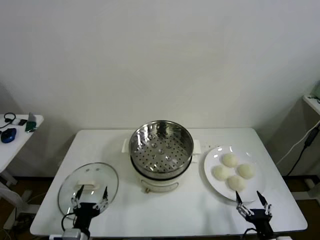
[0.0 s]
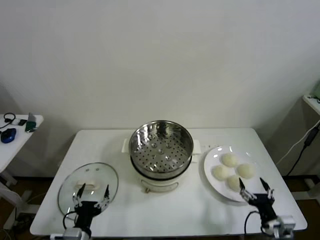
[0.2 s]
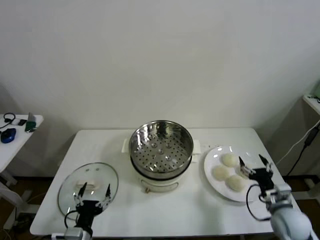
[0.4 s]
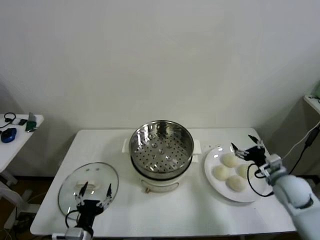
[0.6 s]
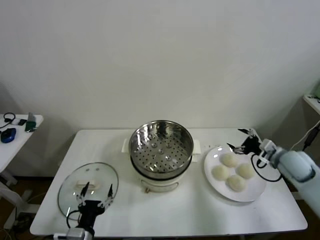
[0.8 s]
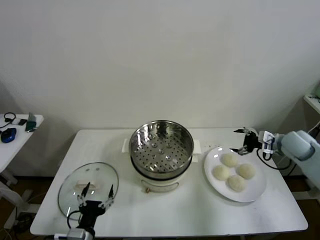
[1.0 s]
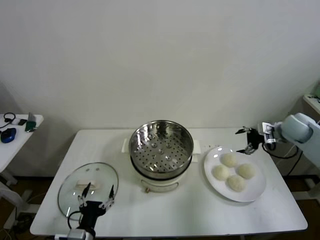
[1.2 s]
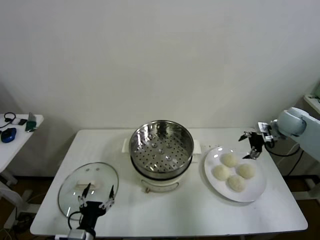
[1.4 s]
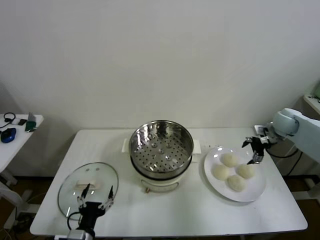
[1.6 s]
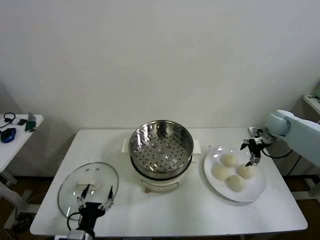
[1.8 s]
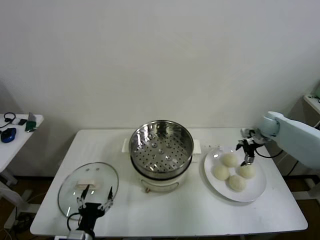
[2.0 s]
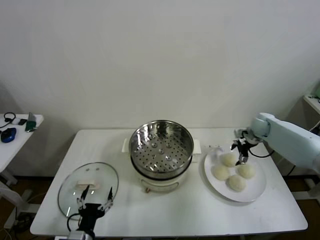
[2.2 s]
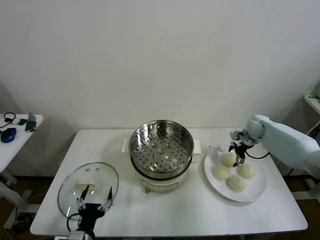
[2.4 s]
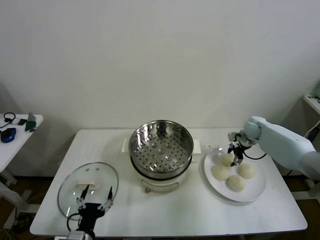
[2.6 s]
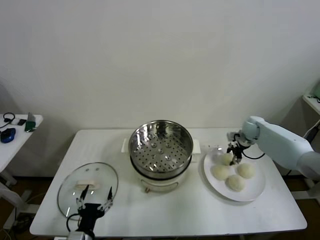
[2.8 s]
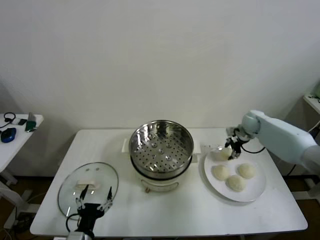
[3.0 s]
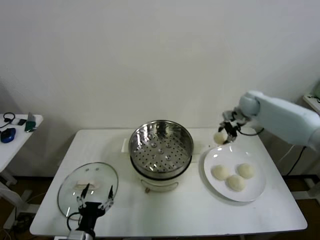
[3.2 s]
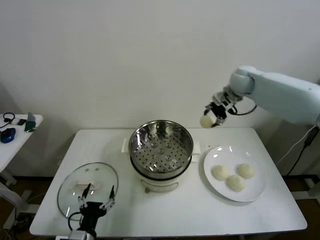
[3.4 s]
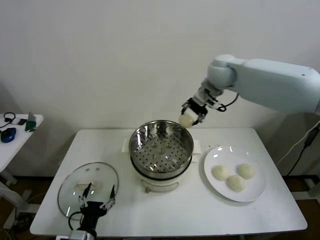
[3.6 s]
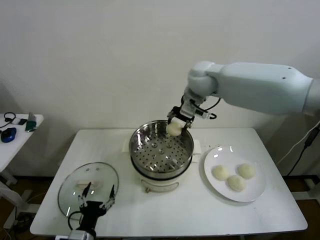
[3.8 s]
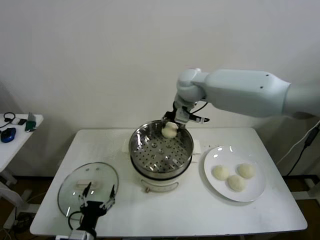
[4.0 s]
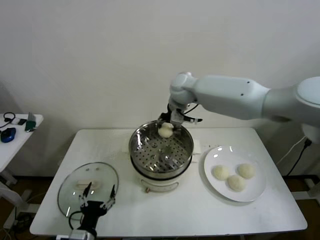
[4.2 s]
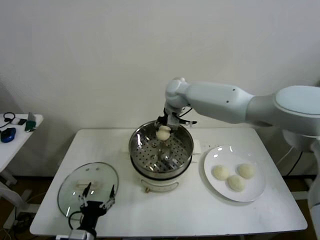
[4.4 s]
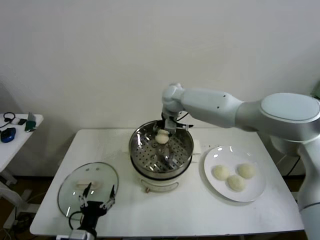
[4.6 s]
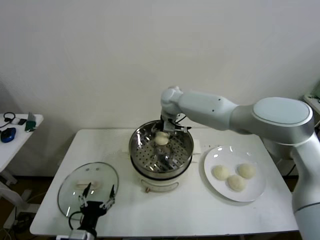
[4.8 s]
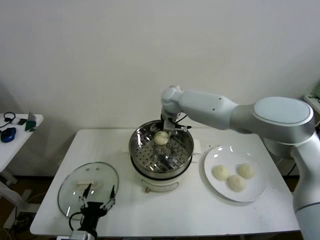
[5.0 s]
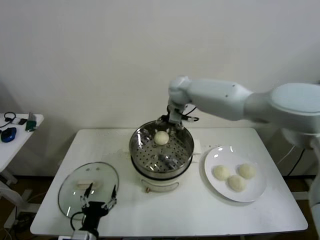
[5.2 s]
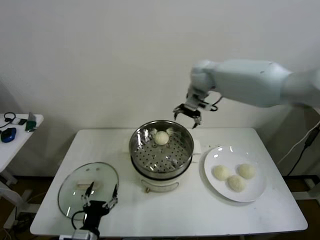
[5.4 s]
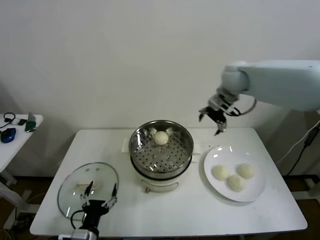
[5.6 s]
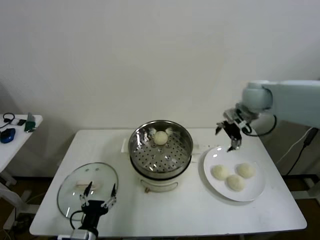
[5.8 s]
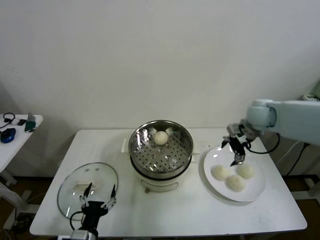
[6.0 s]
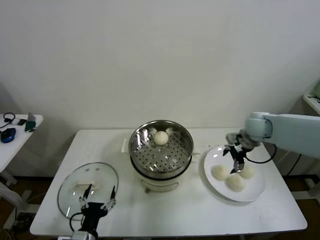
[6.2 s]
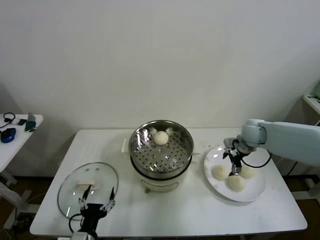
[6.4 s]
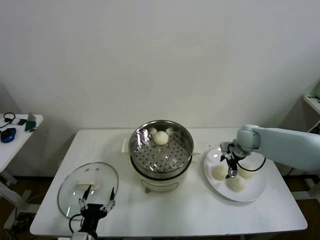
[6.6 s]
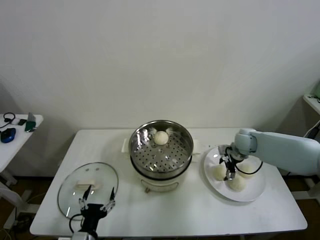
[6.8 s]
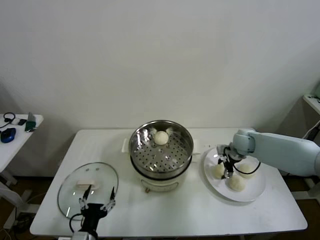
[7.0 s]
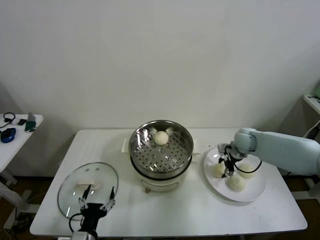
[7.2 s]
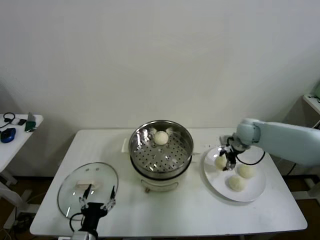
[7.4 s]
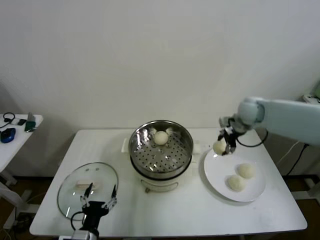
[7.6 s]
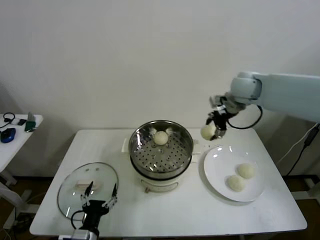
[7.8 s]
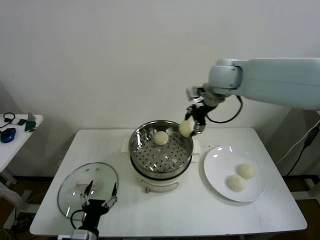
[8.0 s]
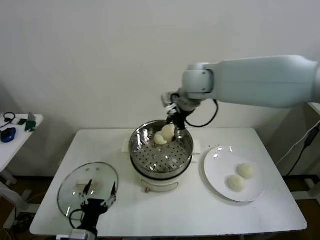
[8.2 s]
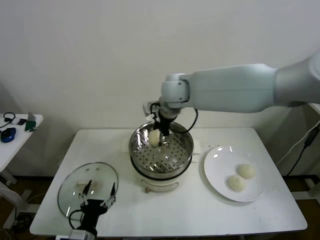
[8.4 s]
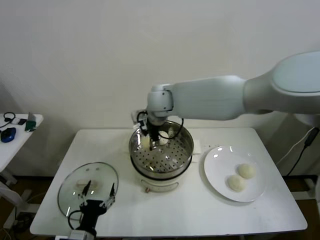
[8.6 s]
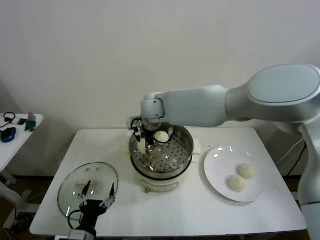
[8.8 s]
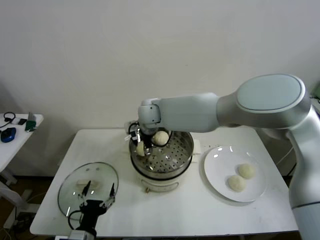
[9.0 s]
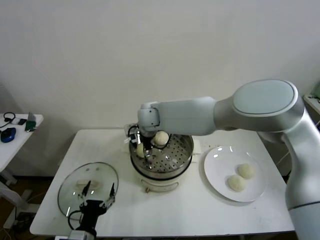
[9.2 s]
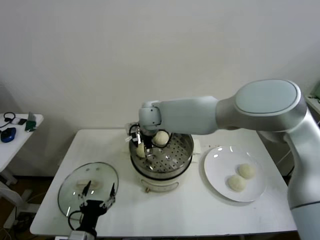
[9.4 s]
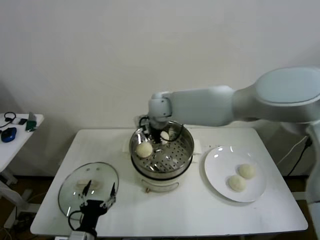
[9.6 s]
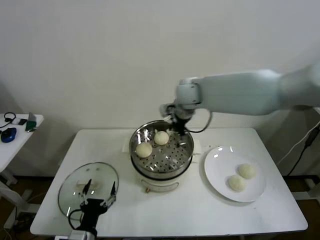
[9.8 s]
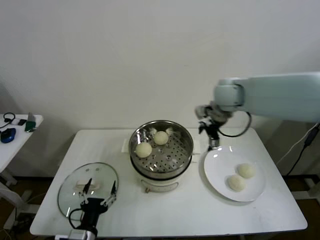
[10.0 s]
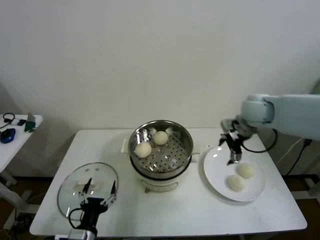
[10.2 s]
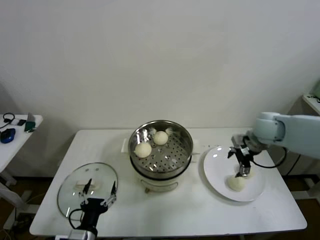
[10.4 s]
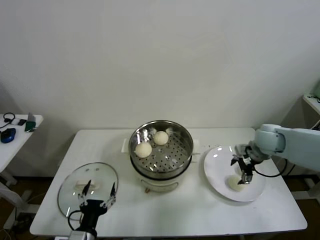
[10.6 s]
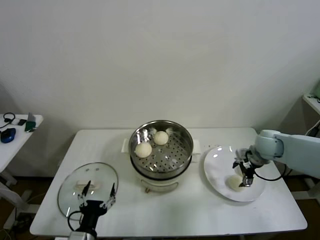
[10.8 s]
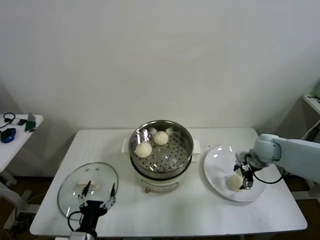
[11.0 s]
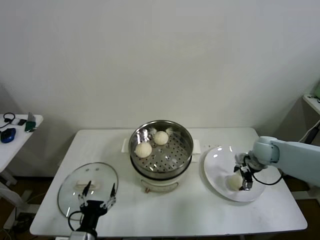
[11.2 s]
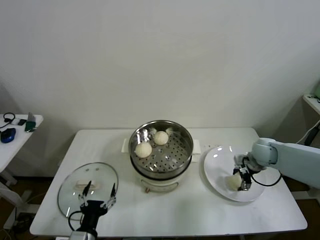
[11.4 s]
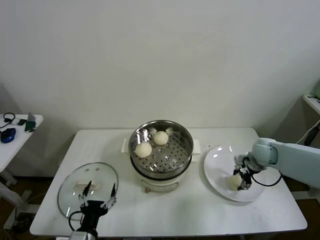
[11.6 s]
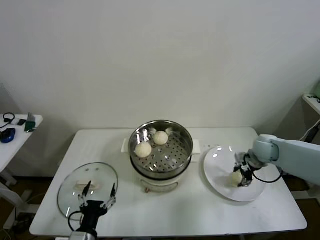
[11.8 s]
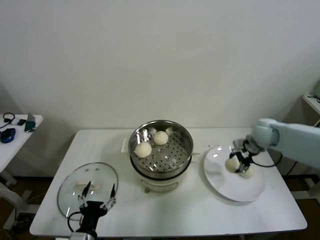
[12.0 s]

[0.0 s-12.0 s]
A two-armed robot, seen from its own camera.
Step, 0.0 to 2.6 s: Grasp the baozi in the plate with right gripper.
Step, 2.8 to 5.0 s: Place the baozi on the steamer with right gripper.
Step, 5.2 to 7.0 s: Grasp the baozi in the plate with right gripper.
Step, 7.2 to 9.2 s: Place the baozi on the steamer with right gripper.
Step, 9.4 to 11.6 s: Grasp the baozi in the plate with right gripper.
1.6 to 3.0 s: The right gripper is displaced to the left and forward by about 10 cm, and closes its fingers.
3.0 to 4.4 s: The right gripper is displaced to the left by roughly 30 cm.
4.4 to 6.0 s: The right gripper is displaced to the right by about 30 cm, and opens its fingers.
6.0 to 7.6 s: The right gripper reaches about 15 cm downward, then returns, and closes up.
7.6 to 9.0 s: The right gripper heads to the left, covering about 35 cm.
9.0 to 10.4 s: The right gripper shifts some 40 cm to the right, and opens up.
10.4 to 12.0 s: The right gripper goes downward and returns, about 10 cm each way, and closes.

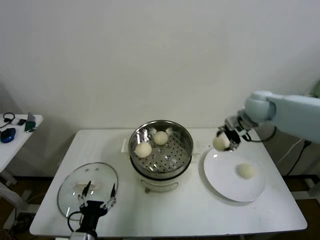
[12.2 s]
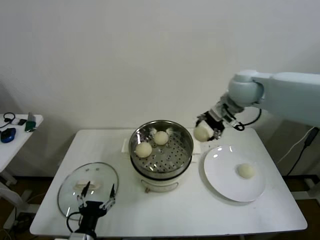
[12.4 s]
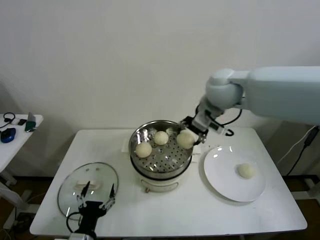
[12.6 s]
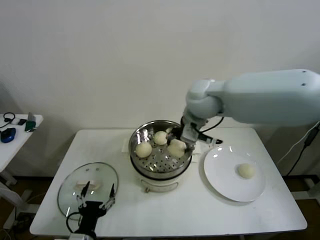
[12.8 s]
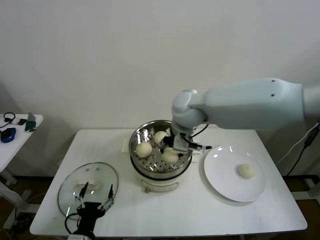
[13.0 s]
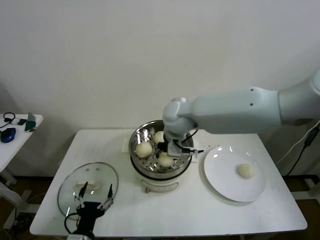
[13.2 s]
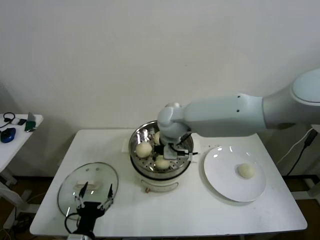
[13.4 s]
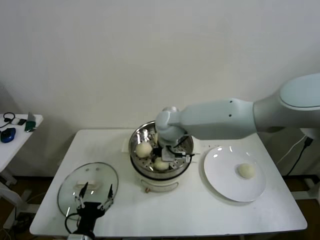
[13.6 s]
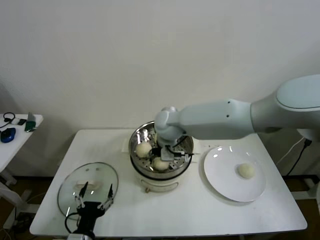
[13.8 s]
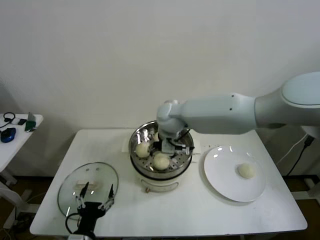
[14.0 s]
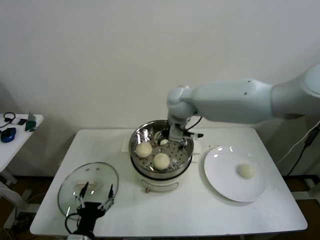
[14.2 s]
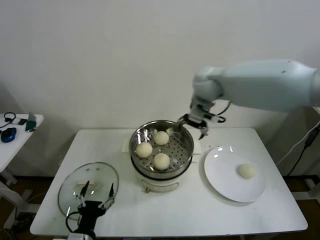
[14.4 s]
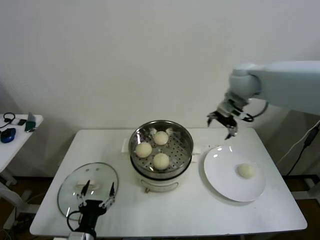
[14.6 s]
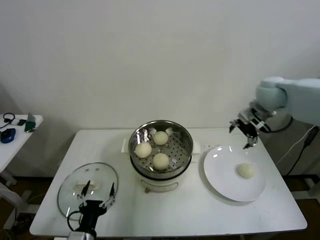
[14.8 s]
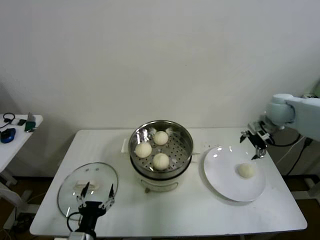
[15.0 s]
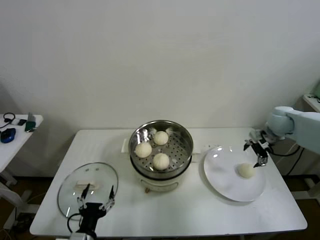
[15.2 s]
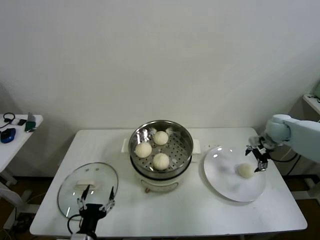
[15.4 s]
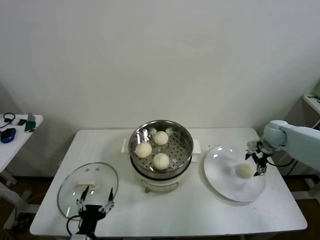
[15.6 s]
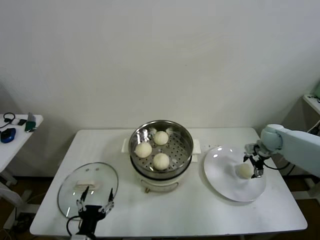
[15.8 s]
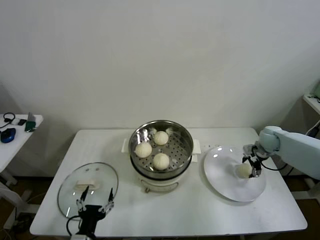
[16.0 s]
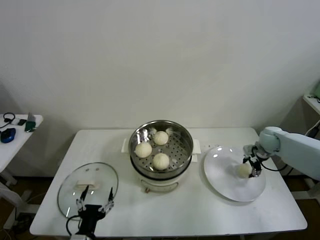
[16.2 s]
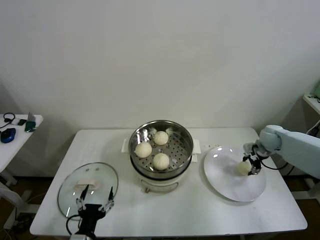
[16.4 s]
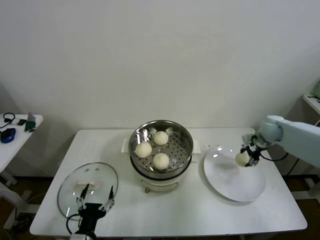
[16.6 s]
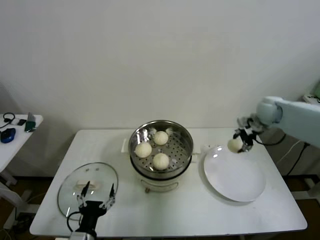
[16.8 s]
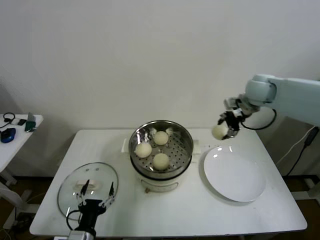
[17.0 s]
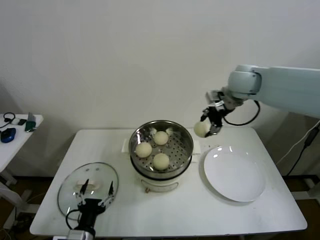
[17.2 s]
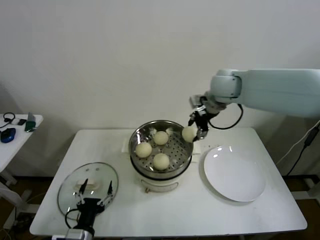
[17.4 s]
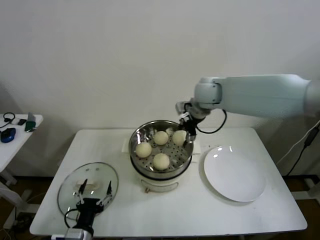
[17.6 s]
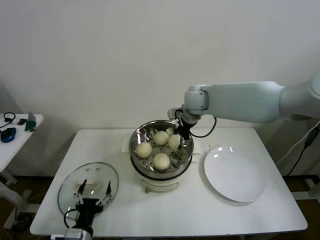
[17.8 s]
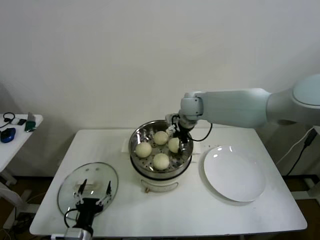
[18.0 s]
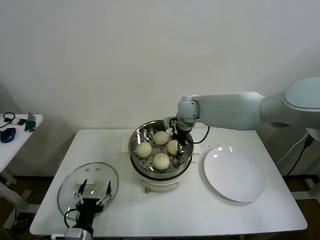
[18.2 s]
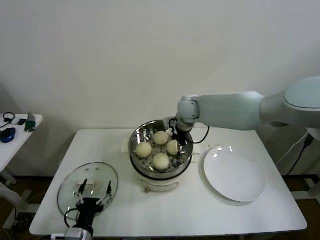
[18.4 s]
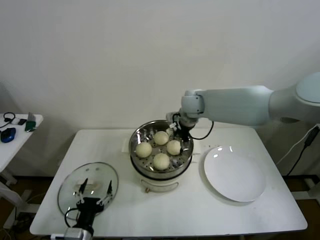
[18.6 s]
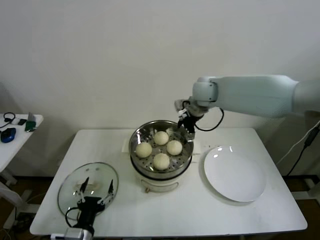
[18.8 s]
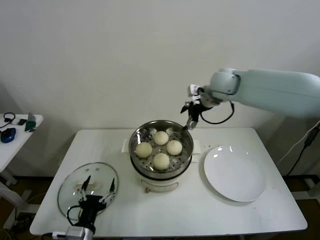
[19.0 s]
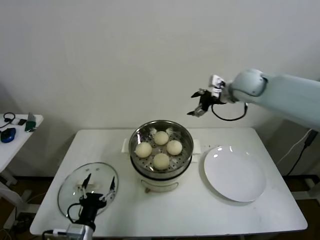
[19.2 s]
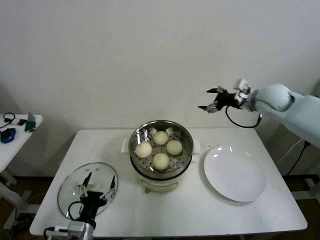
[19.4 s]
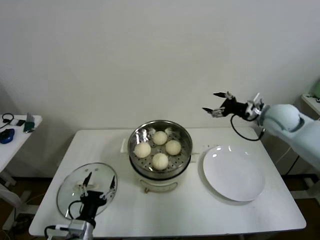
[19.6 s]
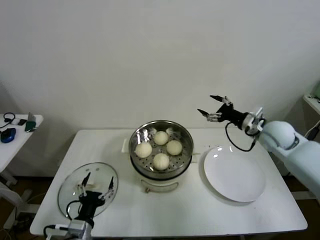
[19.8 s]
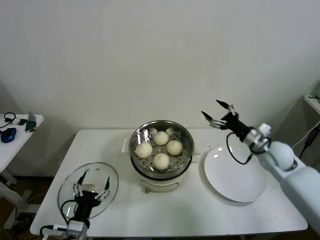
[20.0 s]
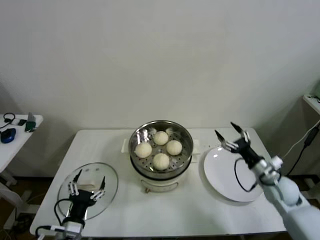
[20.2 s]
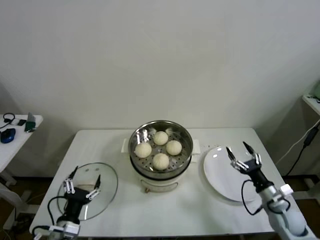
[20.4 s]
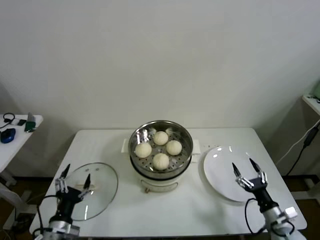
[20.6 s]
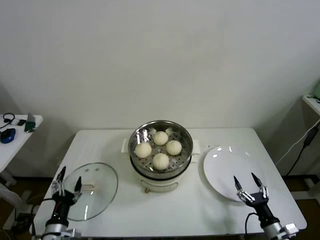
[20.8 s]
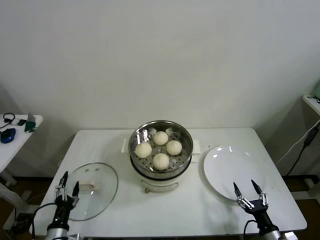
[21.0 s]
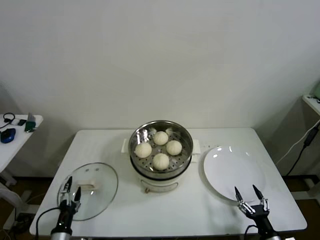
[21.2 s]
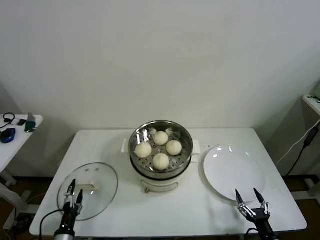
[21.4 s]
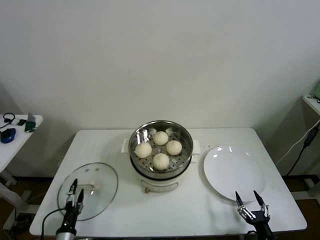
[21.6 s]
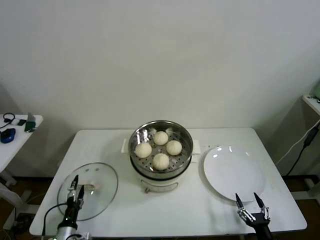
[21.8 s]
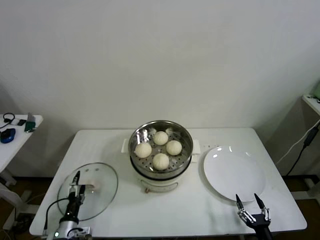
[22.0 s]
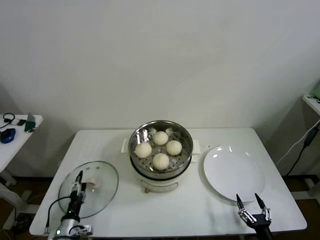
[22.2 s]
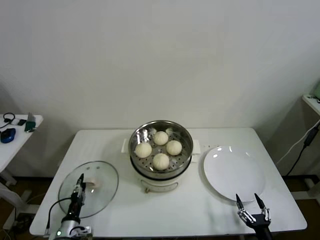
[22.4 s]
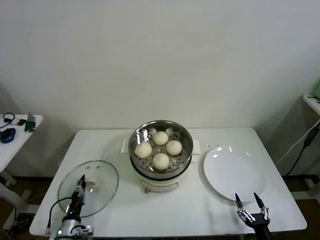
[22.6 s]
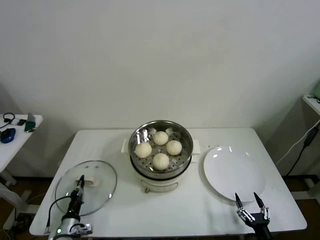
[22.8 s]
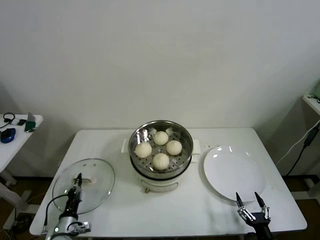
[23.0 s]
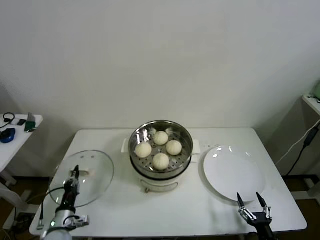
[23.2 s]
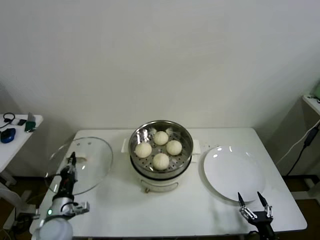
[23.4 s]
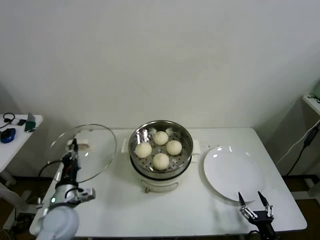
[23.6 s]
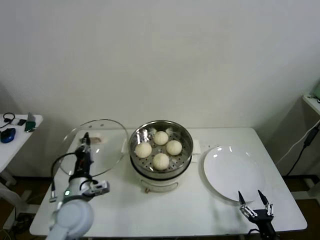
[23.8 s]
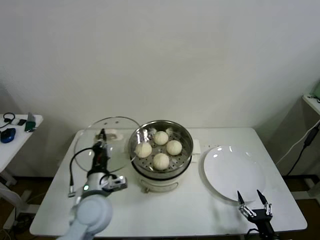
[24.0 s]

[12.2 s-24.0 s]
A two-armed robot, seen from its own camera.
Step, 12.2 to 13.8 s: Place the baozi on the steamer with right gripper.
Step, 14.0 to 16.0 s: Grasp the baozi in the plate with right gripper.
Step, 16.4 to 18.4 s: Place the baozi on the steamer with right gripper.
Step, 18.6 to 22.6 s: Grasp the pot lid with left gripper.
12.2 to 13.6 s: The right gripper goes some 25 cm to the left.
13.6 to 15.2 s: The right gripper shifts some 40 cm to the right, and opens its fingers.
15.2 to 16.6 s: The right gripper closes.
16.6 to 18.2 s: The right gripper moves to the left, about 30 cm.
18.2 to 19.6 s: The right gripper shifts about 25 cm to the right, and opens up.
19.6 to 21.0 s: The right gripper is displaced downward and backward by roughly 50 cm. Meanwhile the left gripper goes approximately 10 cm to the left and downward.
21.0 to 22.6 s: The right gripper shifts by roughly 5 cm, while the left gripper moves downward, roughly 10 cm, and closes its fingers.
22.6 to 24.0 s: The left gripper heads upward and to the right, covering approximately 25 cm.
